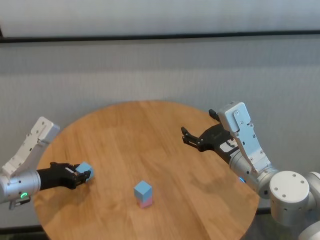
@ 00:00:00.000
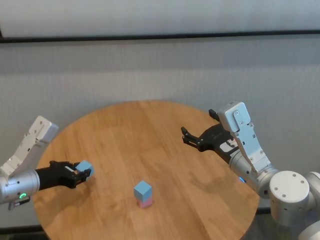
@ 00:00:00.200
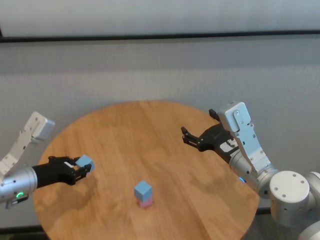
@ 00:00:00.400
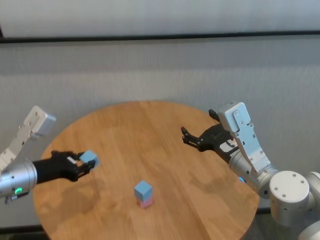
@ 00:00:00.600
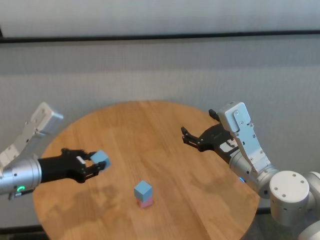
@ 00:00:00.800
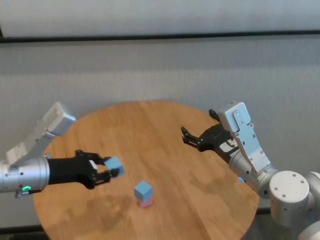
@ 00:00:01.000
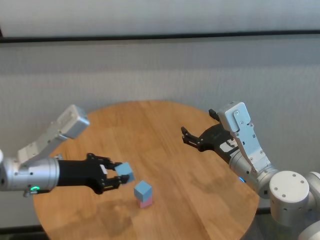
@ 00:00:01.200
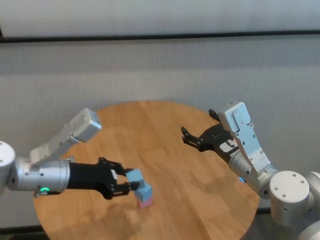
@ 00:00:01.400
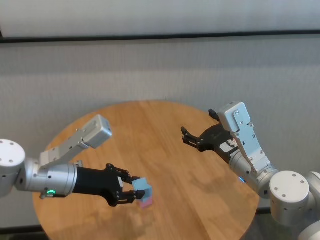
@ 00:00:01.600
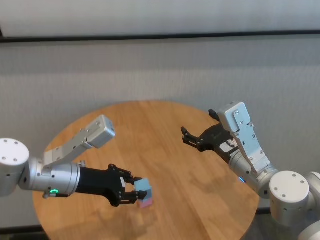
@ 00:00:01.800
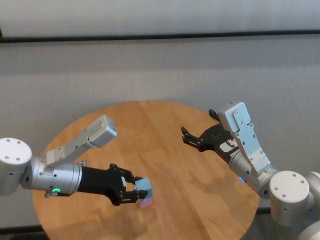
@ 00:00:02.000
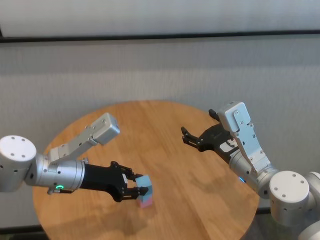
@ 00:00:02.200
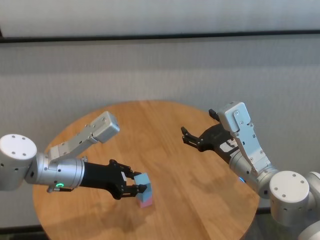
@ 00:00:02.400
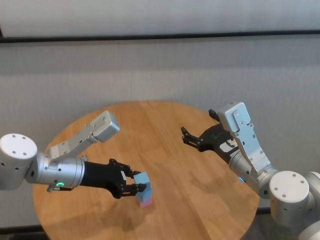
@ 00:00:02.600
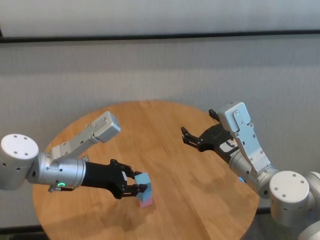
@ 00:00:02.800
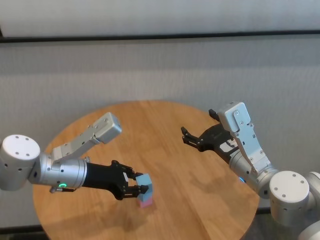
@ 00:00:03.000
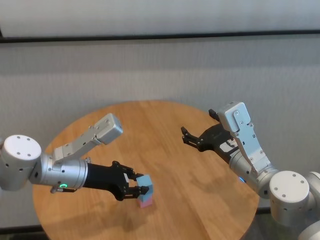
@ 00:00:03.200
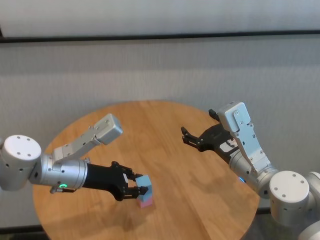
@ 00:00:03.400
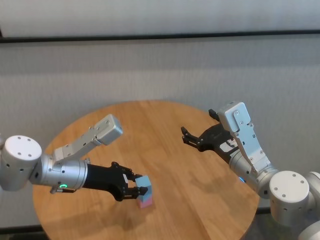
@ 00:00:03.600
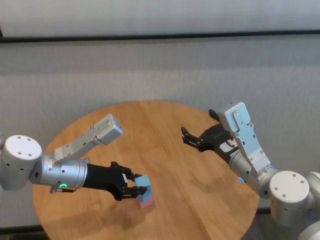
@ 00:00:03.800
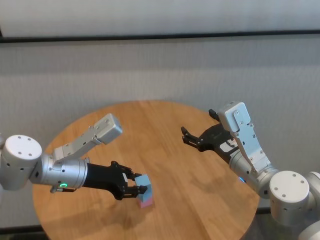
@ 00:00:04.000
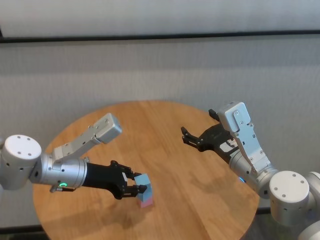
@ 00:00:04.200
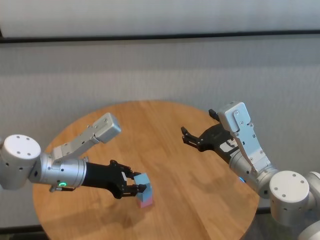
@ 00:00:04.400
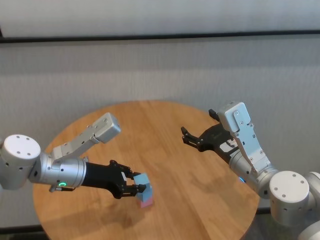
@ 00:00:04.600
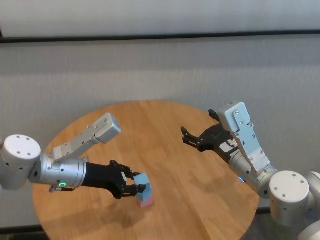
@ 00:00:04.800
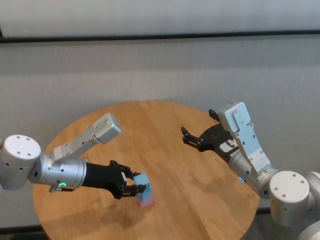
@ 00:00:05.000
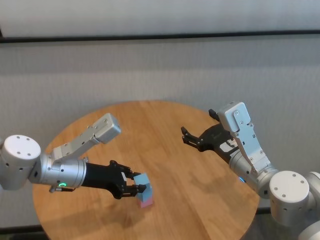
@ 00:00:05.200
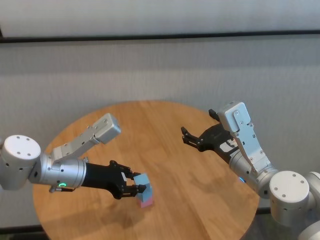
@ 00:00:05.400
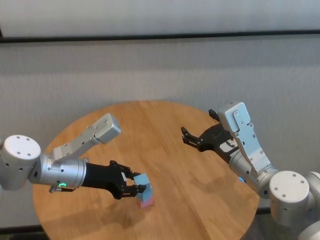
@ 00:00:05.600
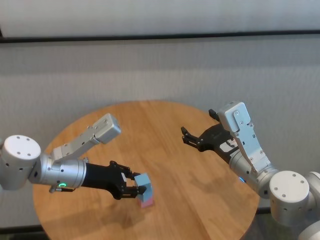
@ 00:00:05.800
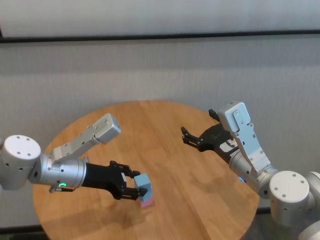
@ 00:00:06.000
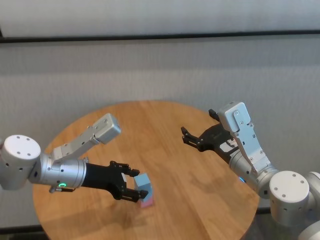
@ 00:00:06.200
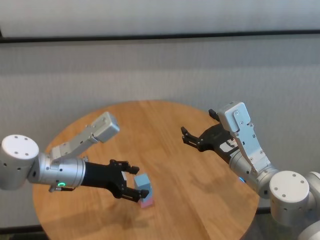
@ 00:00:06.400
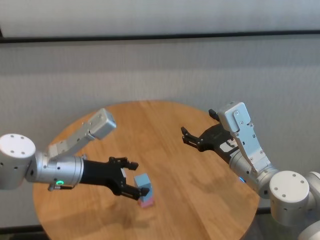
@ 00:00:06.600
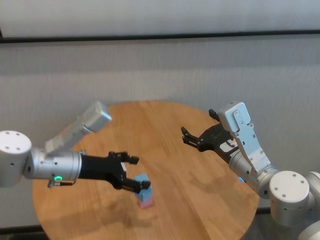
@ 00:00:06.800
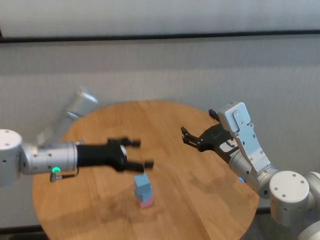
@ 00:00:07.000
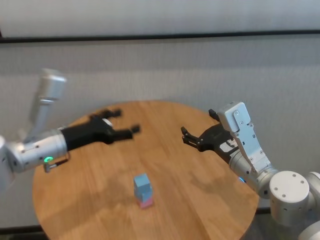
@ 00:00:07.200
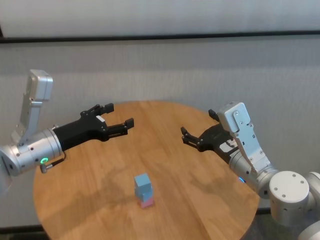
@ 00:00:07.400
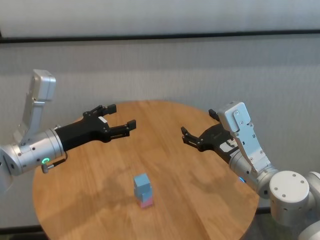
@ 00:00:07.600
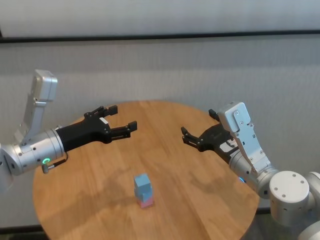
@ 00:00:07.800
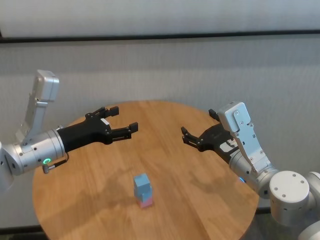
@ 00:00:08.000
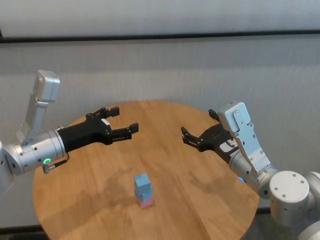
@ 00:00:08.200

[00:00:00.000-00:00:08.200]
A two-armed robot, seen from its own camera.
Task of the whole recording: stack building blocks on the table.
Step, 00:00:00.000 to 00:00:05.800: Place the blue building block on the blue building blocks with left gripper.
